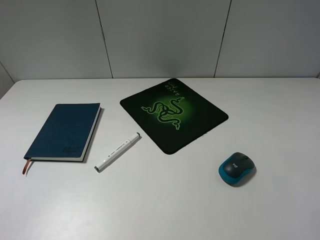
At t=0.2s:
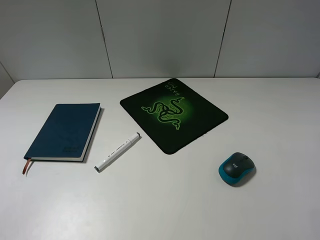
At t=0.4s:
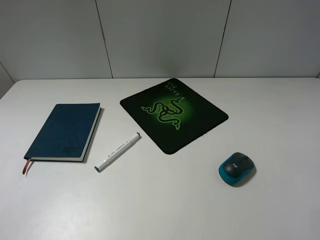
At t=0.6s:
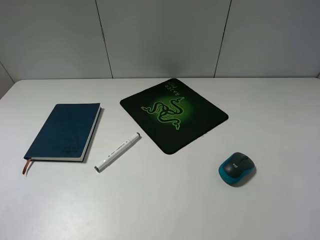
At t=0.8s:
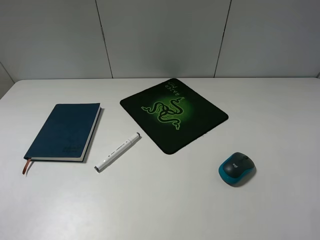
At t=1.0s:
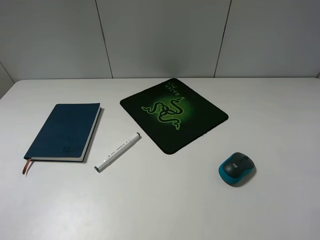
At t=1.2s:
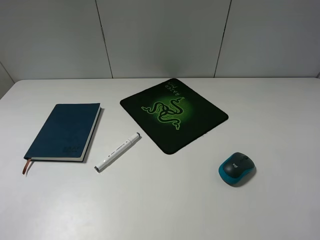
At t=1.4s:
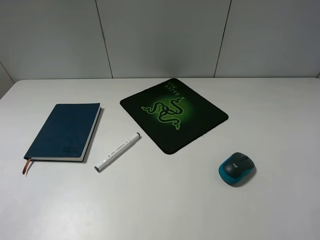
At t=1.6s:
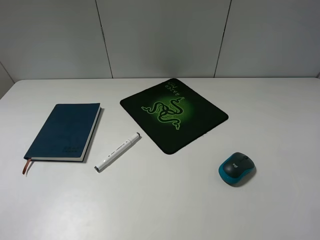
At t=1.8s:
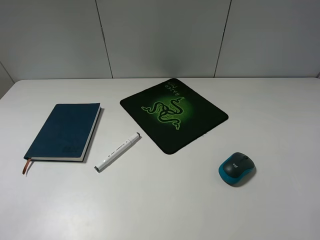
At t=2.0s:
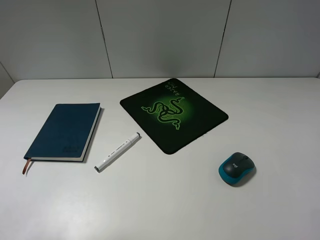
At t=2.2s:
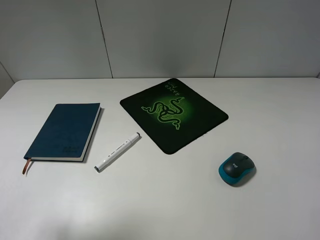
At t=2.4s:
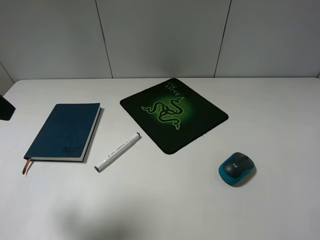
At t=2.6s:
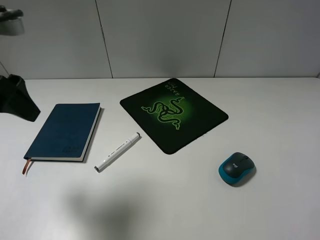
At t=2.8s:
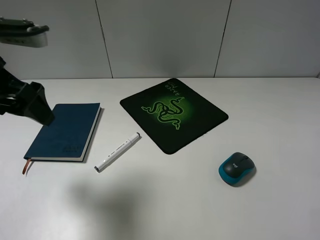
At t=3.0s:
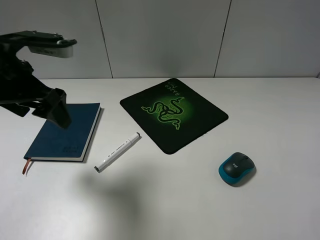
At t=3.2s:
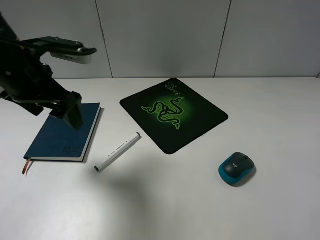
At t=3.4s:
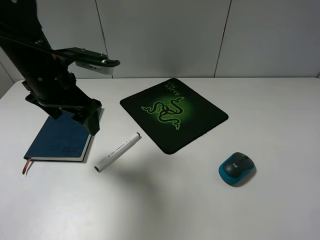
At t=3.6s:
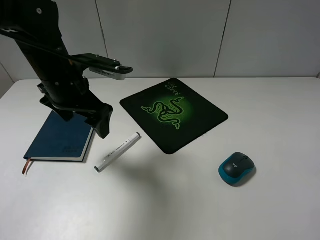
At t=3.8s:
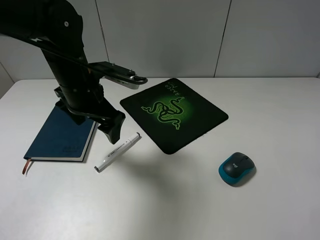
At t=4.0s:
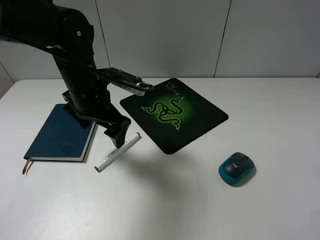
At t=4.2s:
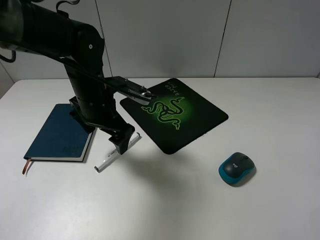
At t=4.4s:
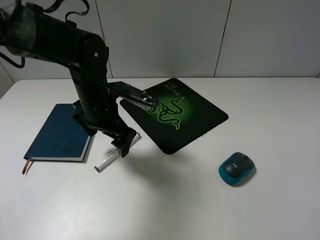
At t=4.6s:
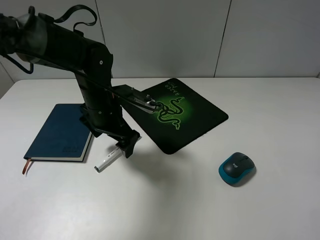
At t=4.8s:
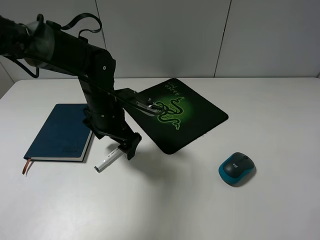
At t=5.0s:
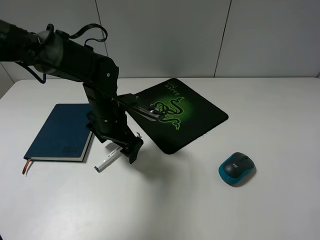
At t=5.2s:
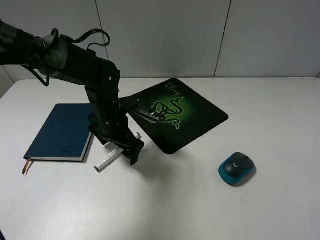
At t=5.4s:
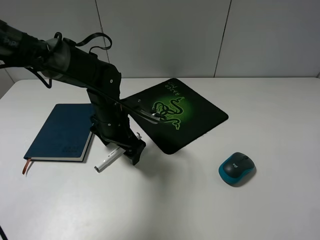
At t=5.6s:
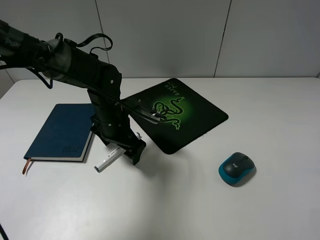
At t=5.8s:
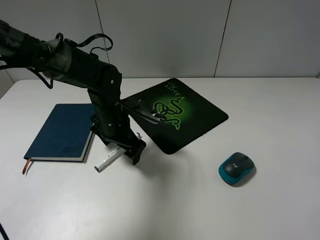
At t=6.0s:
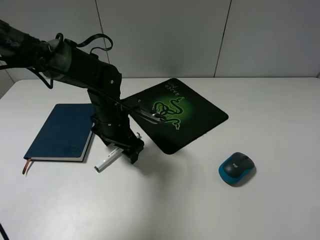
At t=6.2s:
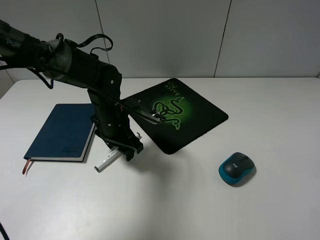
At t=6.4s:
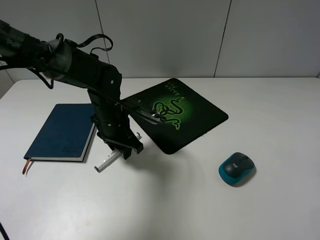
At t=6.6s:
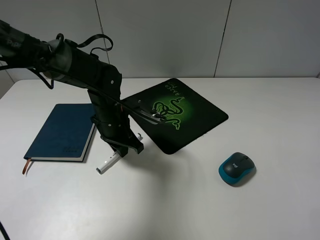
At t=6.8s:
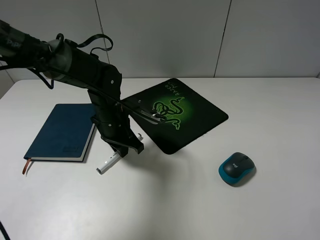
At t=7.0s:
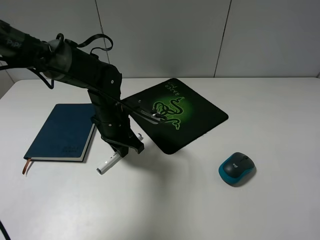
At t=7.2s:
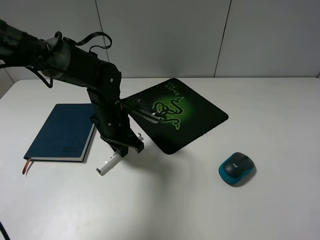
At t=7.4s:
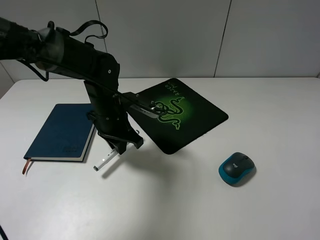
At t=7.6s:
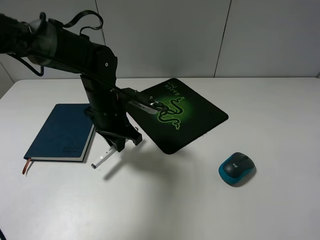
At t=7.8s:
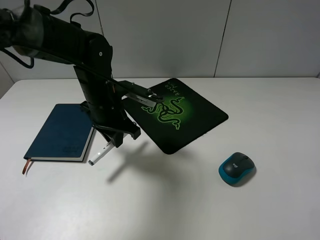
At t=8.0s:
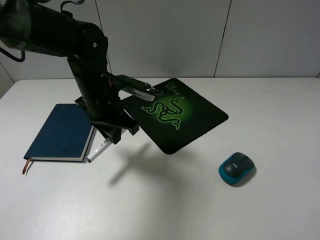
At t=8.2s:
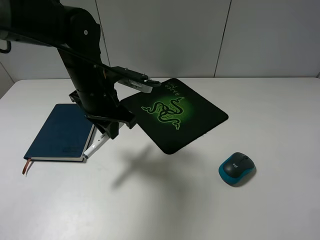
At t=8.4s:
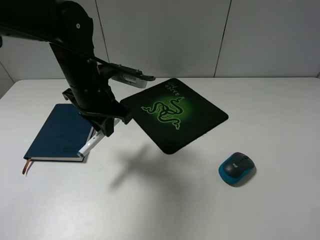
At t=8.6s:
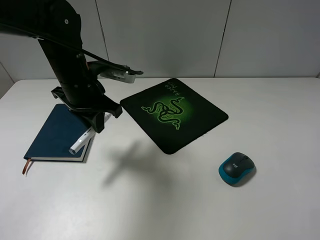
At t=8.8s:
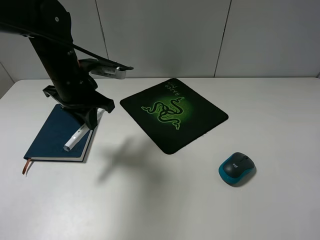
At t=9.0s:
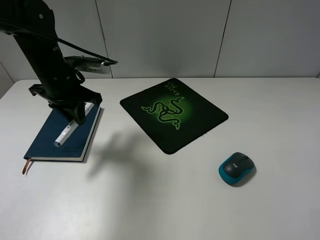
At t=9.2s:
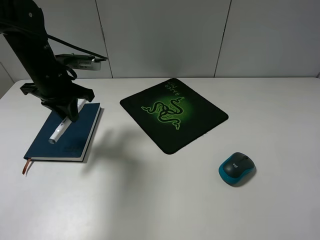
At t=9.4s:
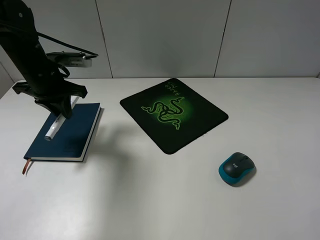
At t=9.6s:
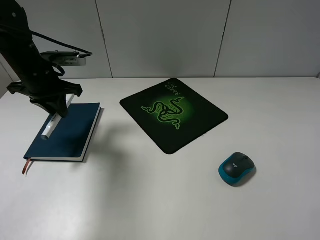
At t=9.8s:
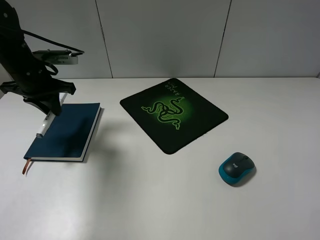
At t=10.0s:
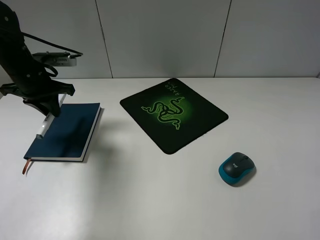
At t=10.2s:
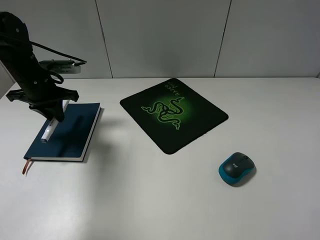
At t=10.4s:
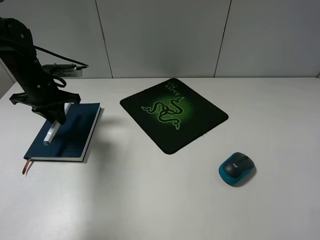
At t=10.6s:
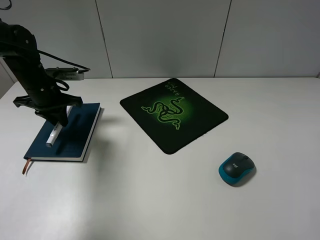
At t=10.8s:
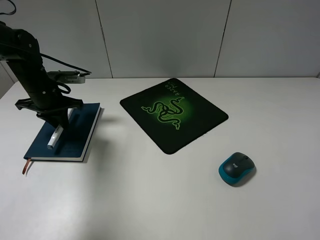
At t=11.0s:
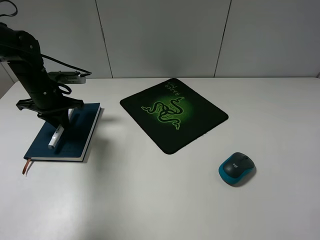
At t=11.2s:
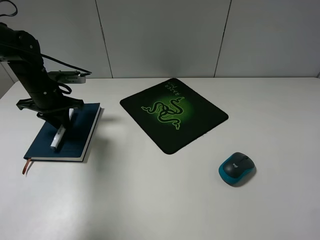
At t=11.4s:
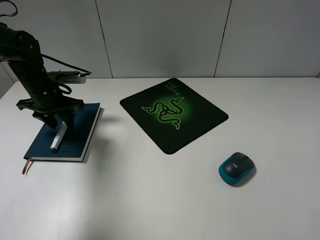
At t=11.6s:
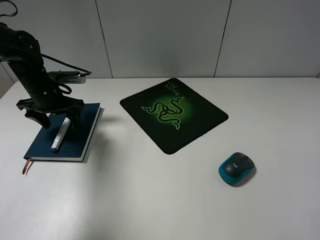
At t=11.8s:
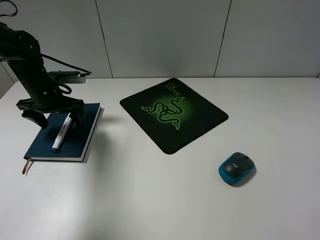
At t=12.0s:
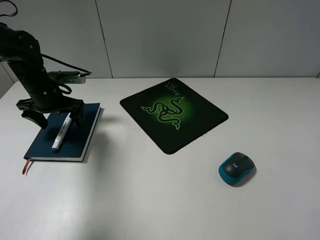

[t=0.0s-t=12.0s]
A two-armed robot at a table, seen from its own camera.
Step, t=0.0s to t=6.8s: Grasp the marker with the left gripper.
Step, t=7.0s to t=12.0s: Place the marker on the notebook with the left gripper.
t=1.6s to t=3.0s: The left gripper travels forward by approximately 20 cm.
t=3.0s to t=4.4s: The left gripper moves downward and to the right, roughly 15 cm.
t=4.4s to t=6.0s: The left gripper is displaced downward by some 5 cm.
t=6.0s to t=7.6s: The left gripper closes up.
t=7.6s to t=9.0s: The left gripper is displaced to the left and upward by roughly 10 cm.
t=9.0s to t=10.4s: The left gripper moves to the left, approximately 5 cm.
t=10.4s to t=12.0s: The left gripper opens.

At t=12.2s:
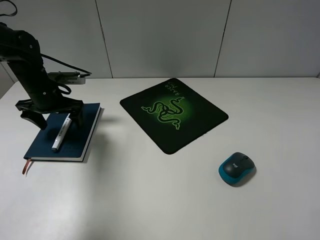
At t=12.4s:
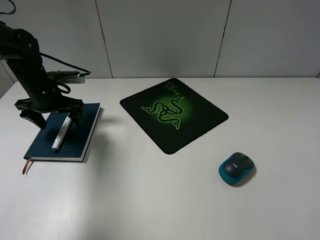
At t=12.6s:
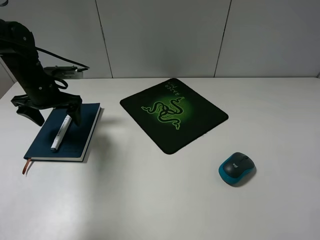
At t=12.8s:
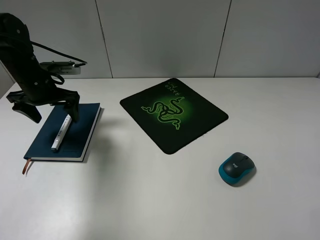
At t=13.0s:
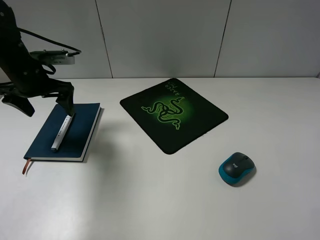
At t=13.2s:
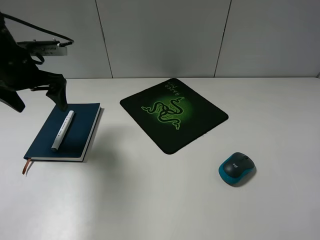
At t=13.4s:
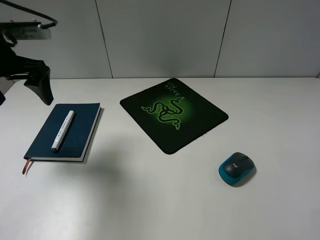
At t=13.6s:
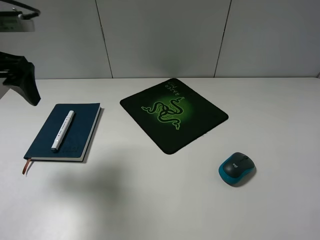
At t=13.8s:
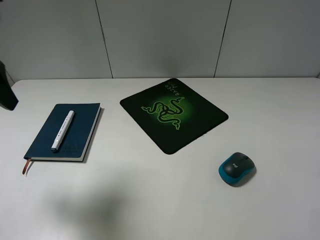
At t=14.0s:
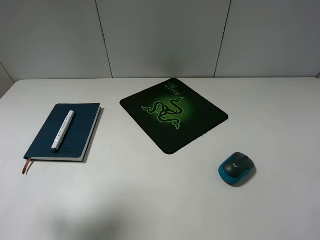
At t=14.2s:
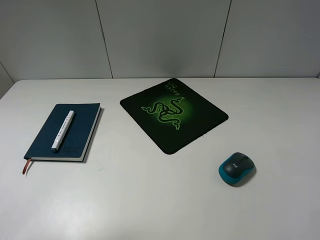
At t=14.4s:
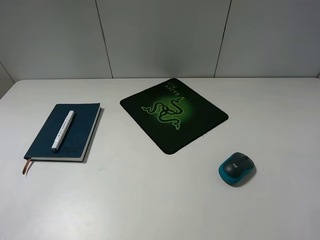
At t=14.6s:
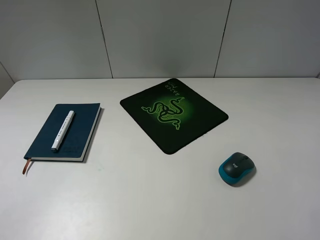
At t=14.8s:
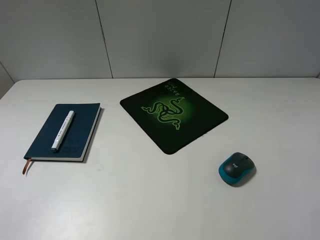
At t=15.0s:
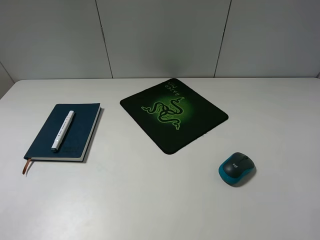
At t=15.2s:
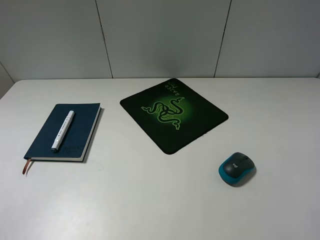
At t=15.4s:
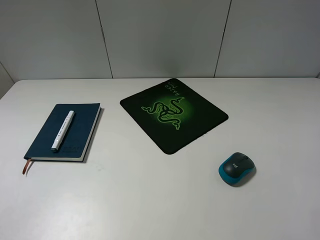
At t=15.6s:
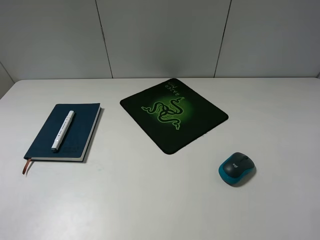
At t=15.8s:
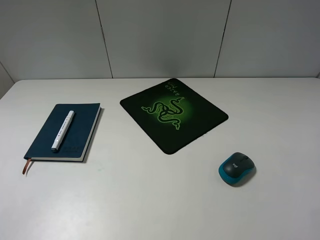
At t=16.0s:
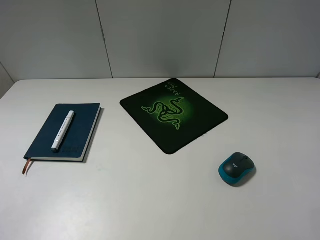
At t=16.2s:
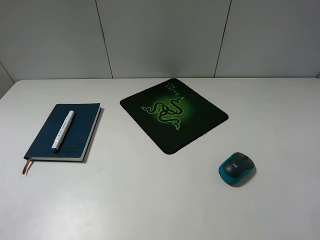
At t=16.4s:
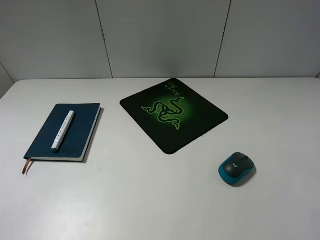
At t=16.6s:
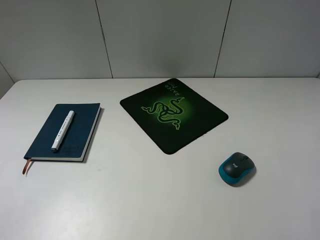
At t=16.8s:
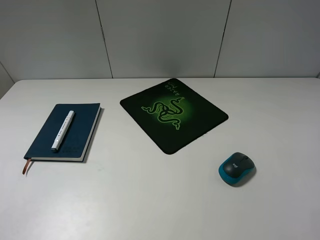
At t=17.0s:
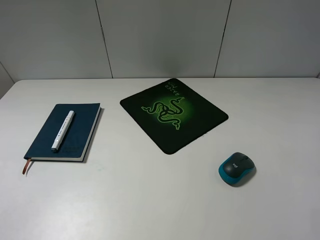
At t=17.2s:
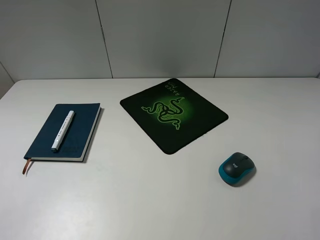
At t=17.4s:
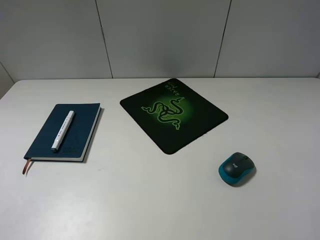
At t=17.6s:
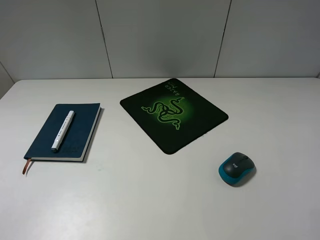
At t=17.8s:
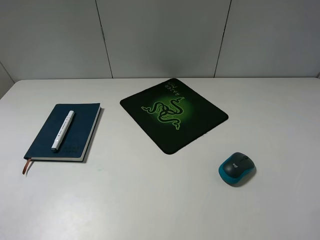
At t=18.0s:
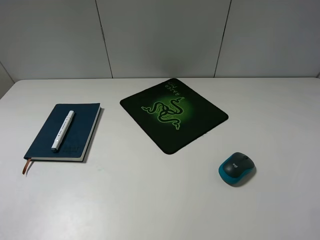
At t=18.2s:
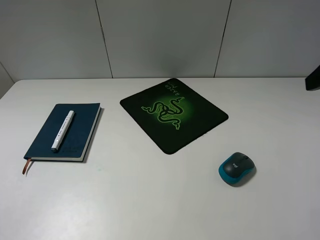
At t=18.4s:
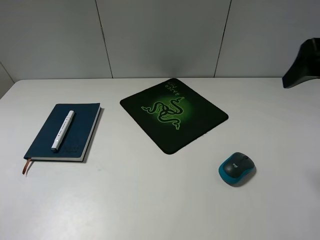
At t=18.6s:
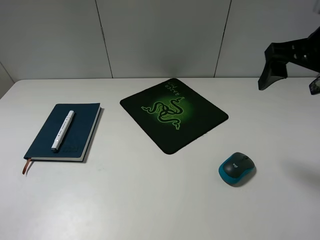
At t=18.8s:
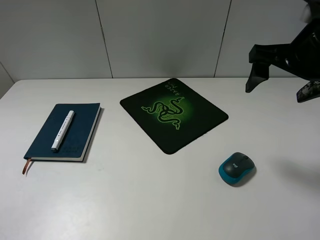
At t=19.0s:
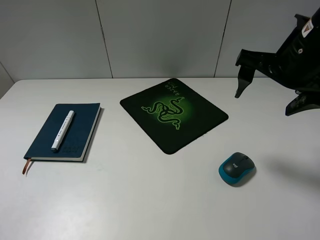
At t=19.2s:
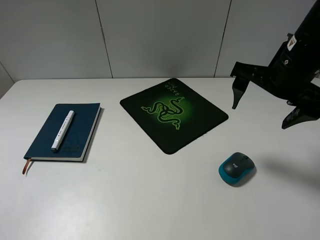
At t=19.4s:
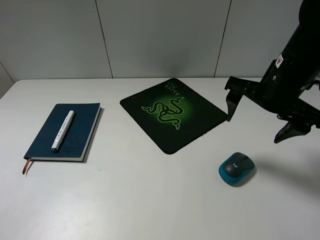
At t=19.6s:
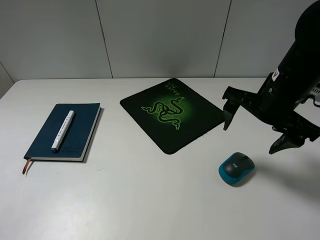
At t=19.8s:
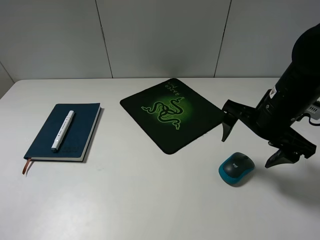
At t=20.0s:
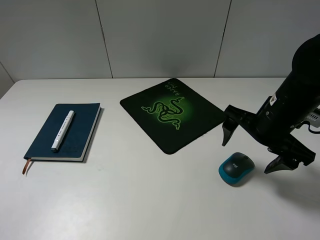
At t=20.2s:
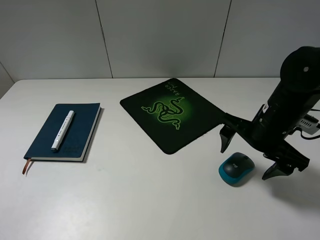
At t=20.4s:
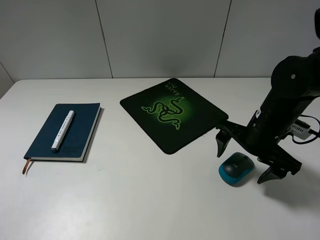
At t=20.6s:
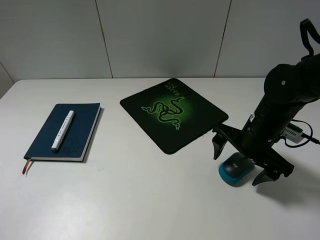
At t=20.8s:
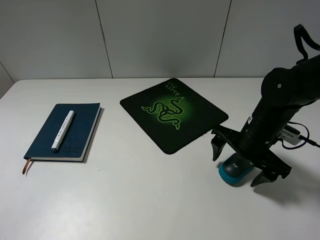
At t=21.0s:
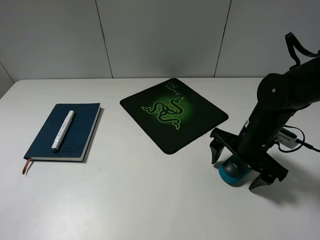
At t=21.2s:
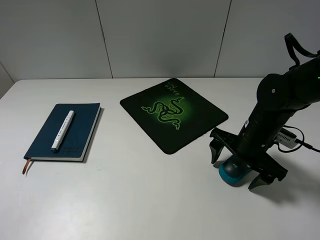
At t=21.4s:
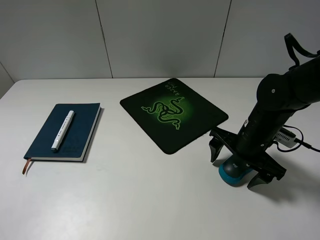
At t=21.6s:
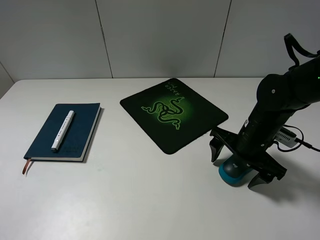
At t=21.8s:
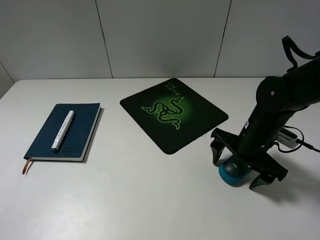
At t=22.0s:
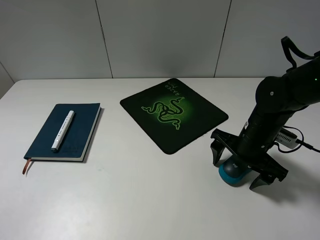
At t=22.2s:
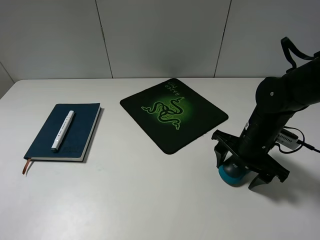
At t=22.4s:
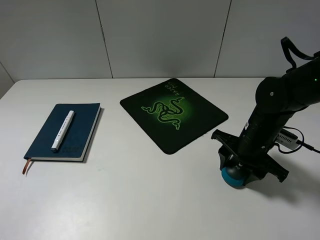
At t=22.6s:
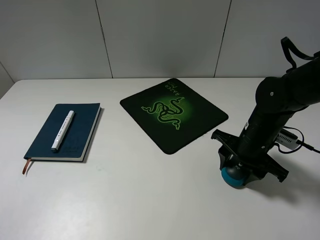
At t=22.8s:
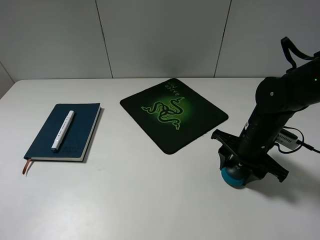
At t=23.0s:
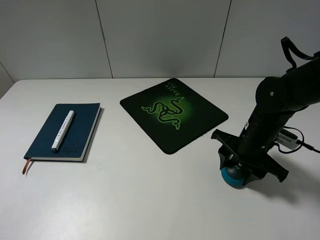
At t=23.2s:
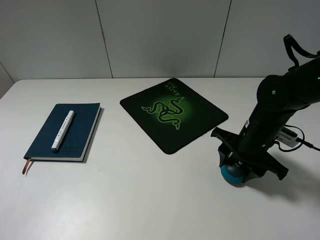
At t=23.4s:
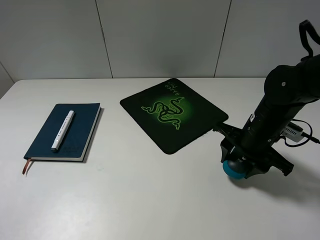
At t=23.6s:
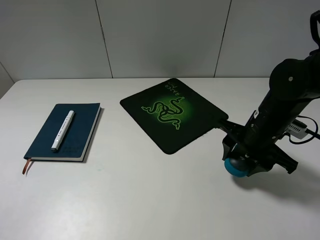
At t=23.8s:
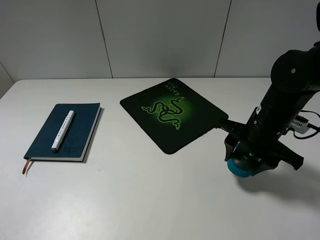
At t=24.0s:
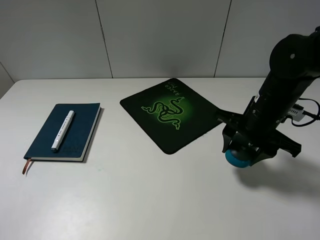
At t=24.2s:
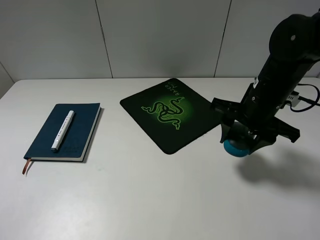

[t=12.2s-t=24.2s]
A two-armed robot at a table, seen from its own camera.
Step, t=12.2s to t=22.4s: Grasp the mouse with the right gripper.
t=12.2s to t=13.8s: The left gripper shifts roughly 25 cm upward and backward.
t=13.8s to t=15.2s: The left gripper is displaced backward by roughly 20 cm.
t=15.2s to t=16.6s: Both grippers stay about where they are.
t=18.2s to t=19.8s: The right gripper travels downward and to the left by roughly 15 cm.
t=19.8s to t=21.2s: The right gripper heads downward, covering some 10 cm.
t=21.2s to t=22.6s: The right gripper closes its fingers.
t=22.6s to t=24.2s: The right gripper goes some 10 cm upward.
